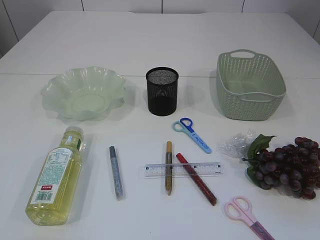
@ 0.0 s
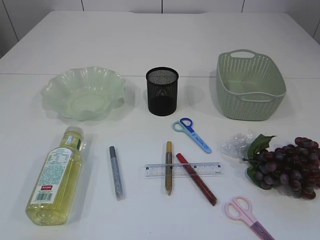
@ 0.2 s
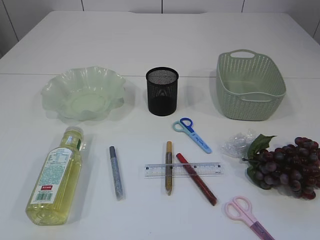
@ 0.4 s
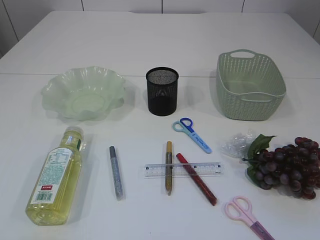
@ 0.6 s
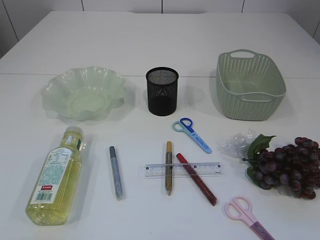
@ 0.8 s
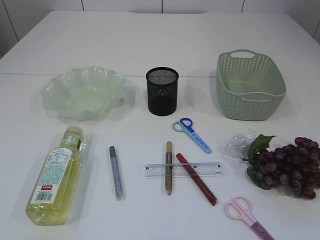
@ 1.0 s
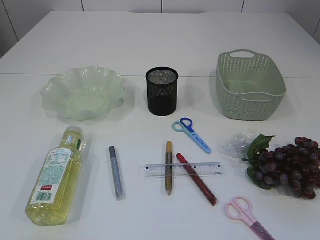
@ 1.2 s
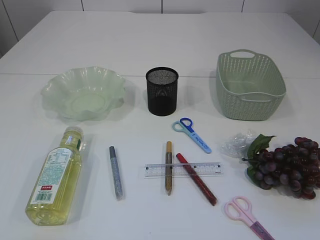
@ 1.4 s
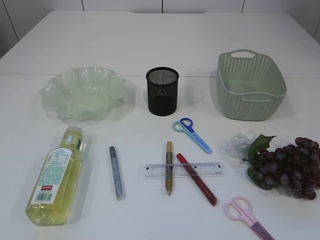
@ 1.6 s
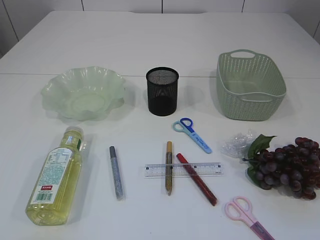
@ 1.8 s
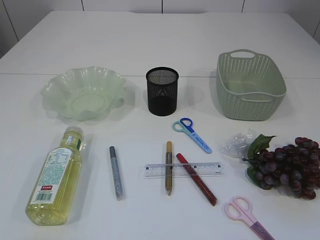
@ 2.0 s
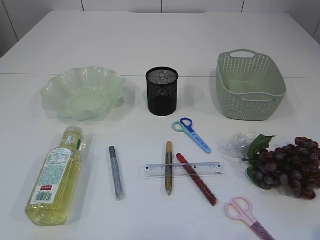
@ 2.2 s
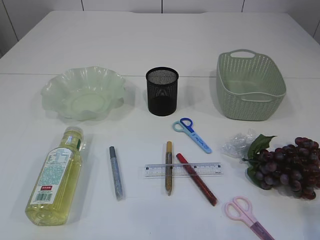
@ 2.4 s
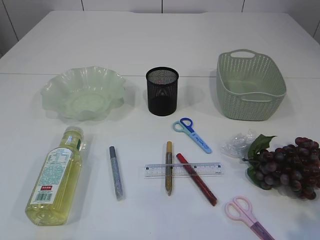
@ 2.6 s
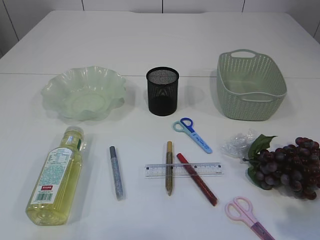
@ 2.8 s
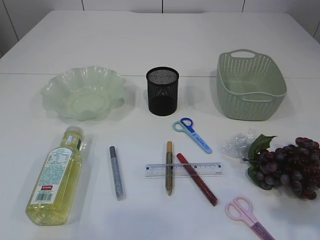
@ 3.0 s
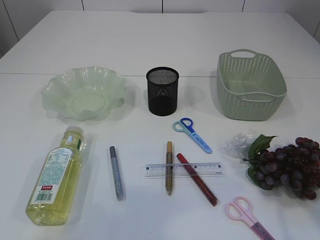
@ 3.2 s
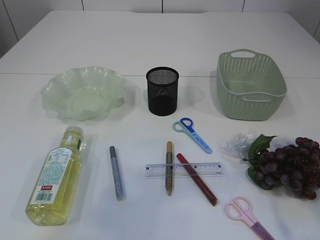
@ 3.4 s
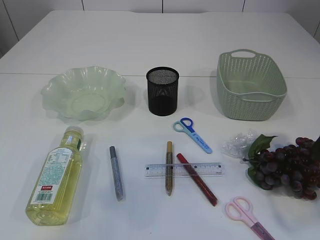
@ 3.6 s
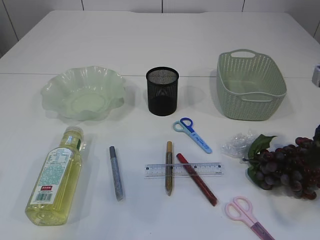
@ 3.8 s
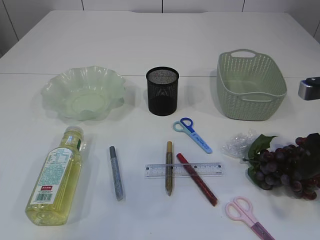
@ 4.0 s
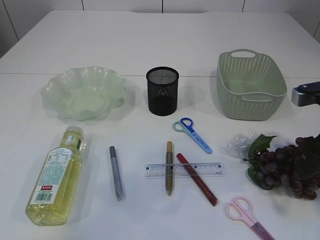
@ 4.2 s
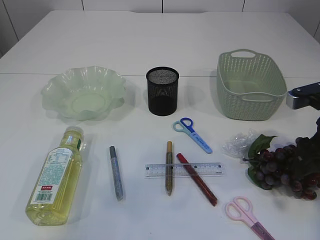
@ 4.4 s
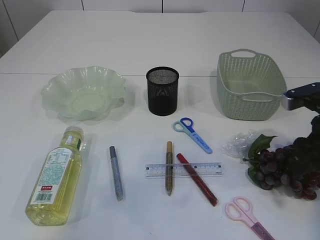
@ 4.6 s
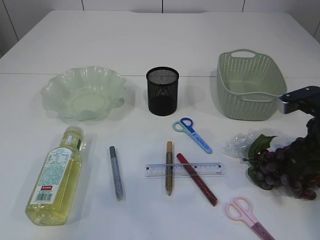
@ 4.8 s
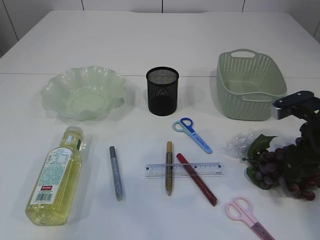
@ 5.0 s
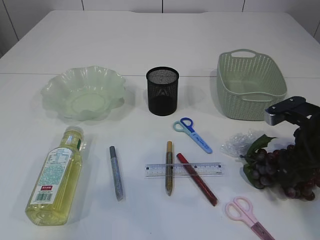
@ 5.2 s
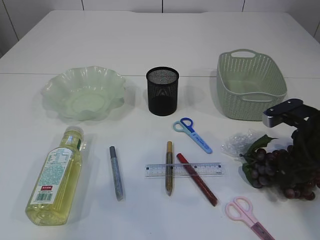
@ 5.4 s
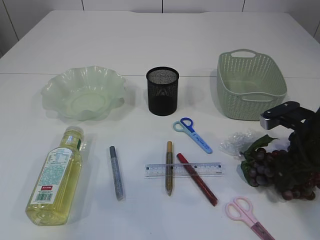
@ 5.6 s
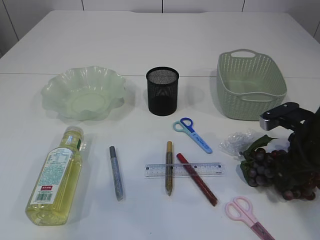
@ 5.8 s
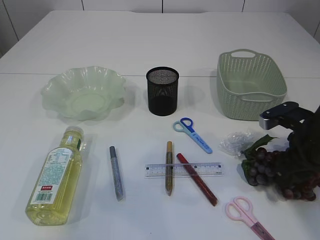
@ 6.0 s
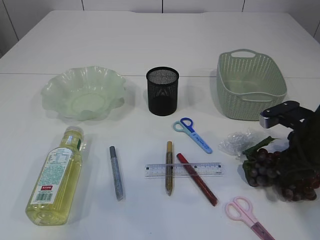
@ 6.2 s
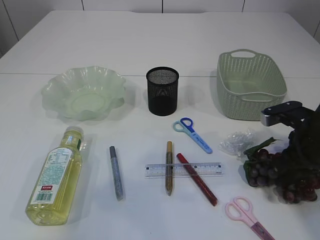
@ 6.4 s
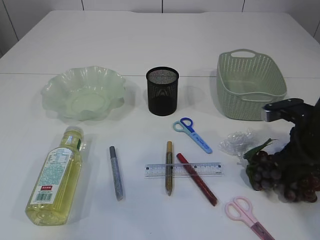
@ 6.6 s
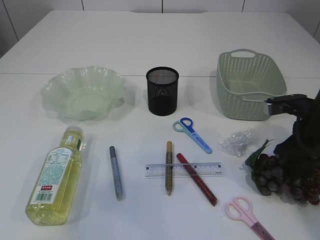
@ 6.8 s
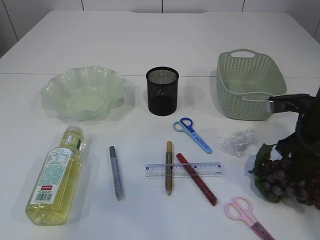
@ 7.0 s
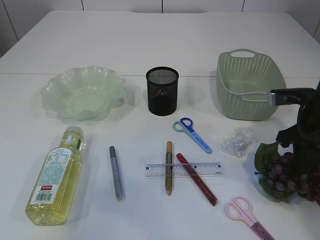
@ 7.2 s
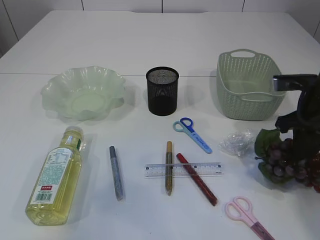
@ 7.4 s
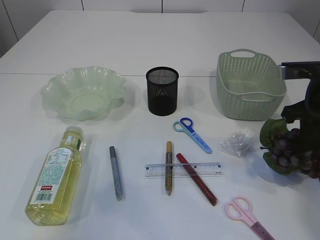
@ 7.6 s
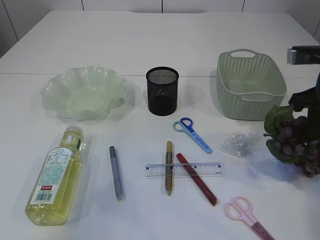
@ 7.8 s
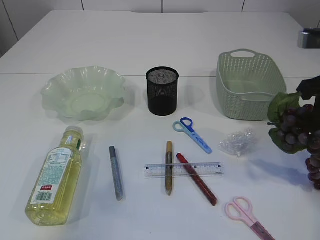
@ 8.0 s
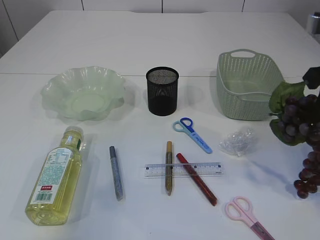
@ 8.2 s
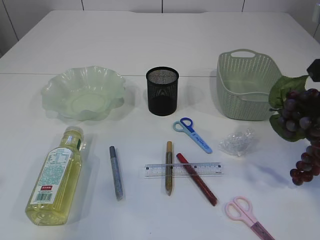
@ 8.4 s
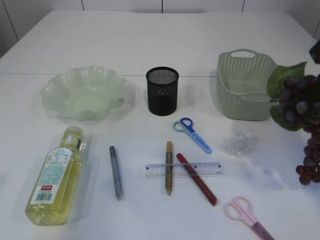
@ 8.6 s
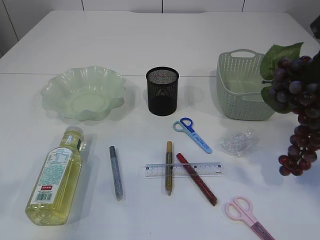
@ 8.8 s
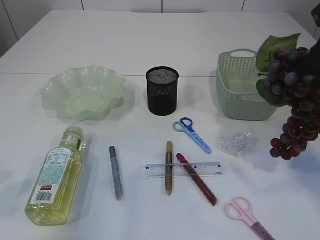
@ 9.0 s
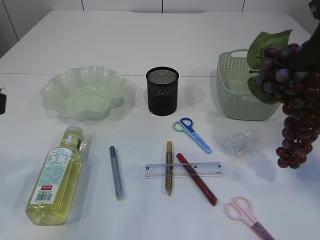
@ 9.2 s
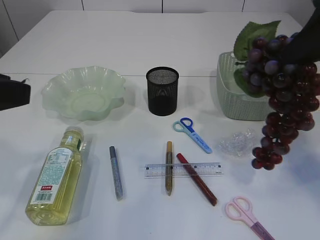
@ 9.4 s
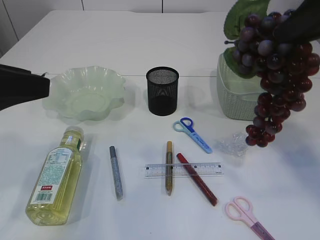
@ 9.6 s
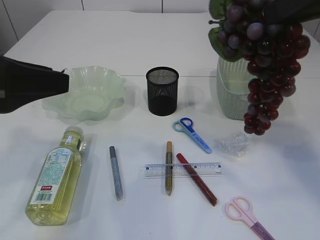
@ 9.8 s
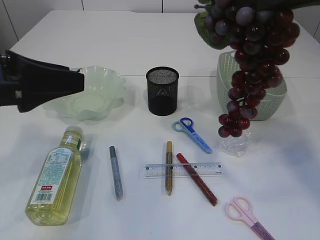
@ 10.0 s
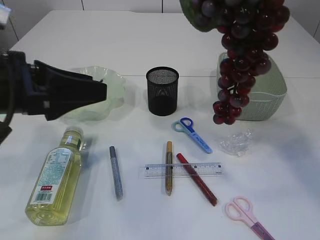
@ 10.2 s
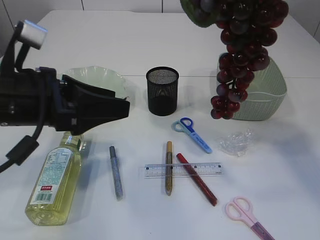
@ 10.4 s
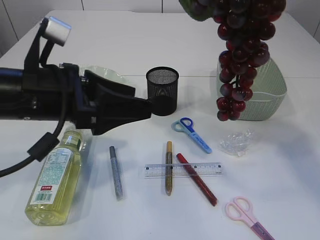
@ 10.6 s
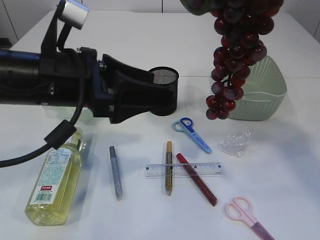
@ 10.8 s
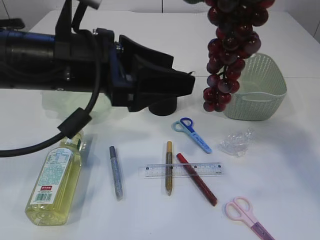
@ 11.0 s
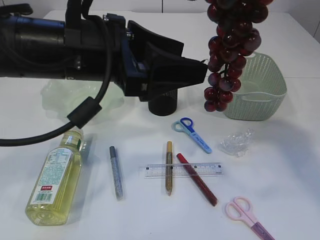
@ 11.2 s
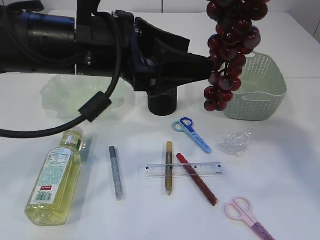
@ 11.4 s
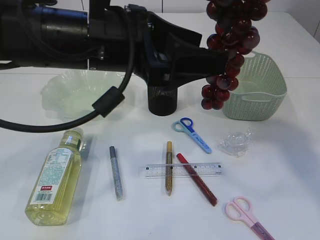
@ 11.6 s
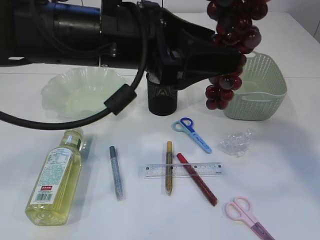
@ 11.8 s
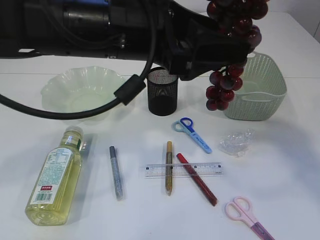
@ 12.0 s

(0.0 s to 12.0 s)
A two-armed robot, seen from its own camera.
Step, 0.0 s - 9.4 s: Pick up the grapes.
1.6 s - 3.0 s: The right gripper is displaced forward by about 15 cm.
3.0 s - 4.4 s: The right gripper shifts roughly 15 cm forward and downward, while the left gripper heads forward and upward, covering some 10 cm.
4.4 s - 6.0 s: The right gripper shifts approximately 5 cm downward.
6.0 s - 7.6 s: The right gripper goes some 10 cm upward, and closes its fingers.
7.6 s - 9.0 s: The right gripper shifts approximately 15 cm upward and backward.
9.0 s - 10.4 s: The right gripper shifts approximately 5 cm upward; the left gripper travels forward, to the right and downward by some 15 cm.
10.4 s - 12.0 s: The left gripper shifts roughly 15 cm to the right and upward.

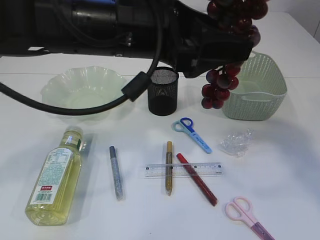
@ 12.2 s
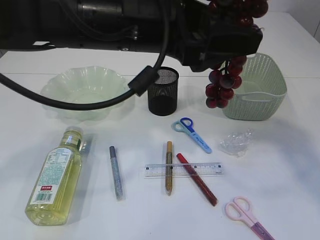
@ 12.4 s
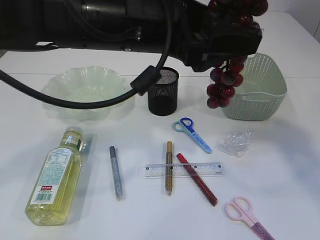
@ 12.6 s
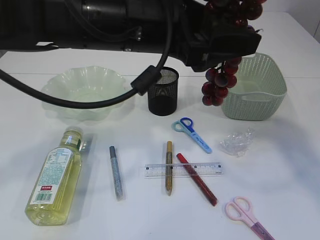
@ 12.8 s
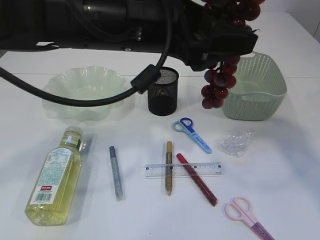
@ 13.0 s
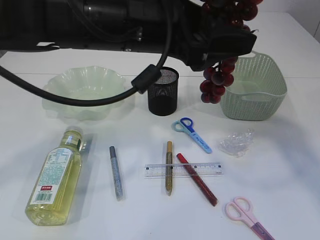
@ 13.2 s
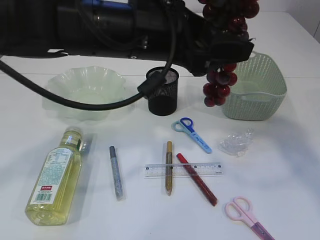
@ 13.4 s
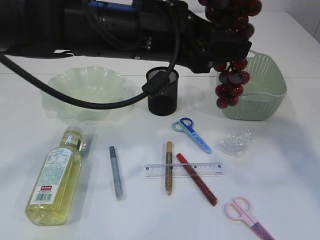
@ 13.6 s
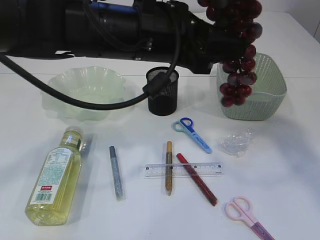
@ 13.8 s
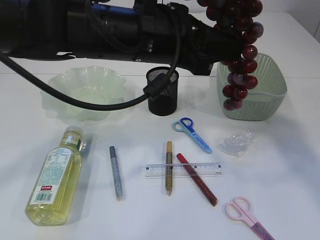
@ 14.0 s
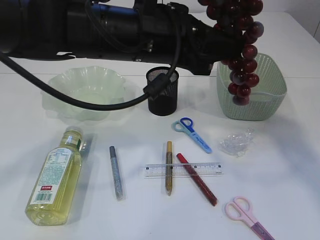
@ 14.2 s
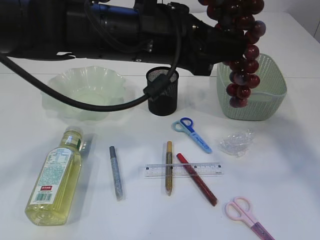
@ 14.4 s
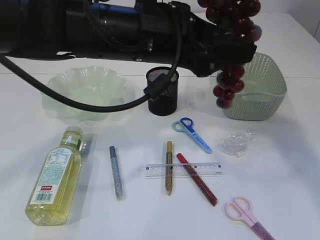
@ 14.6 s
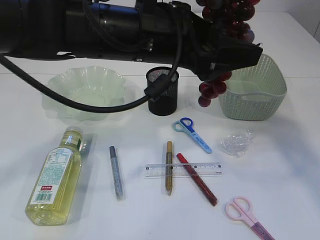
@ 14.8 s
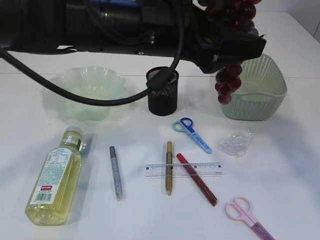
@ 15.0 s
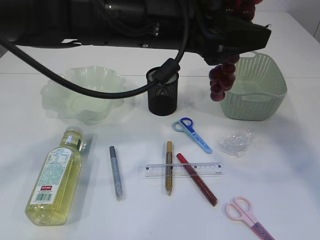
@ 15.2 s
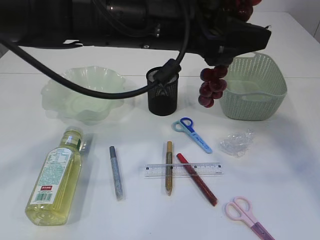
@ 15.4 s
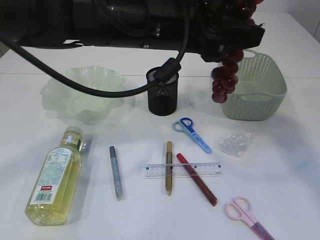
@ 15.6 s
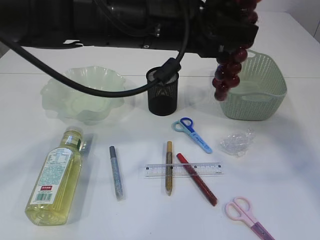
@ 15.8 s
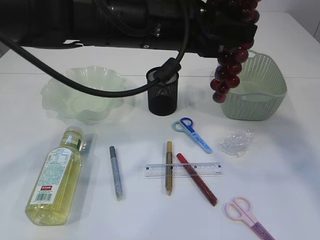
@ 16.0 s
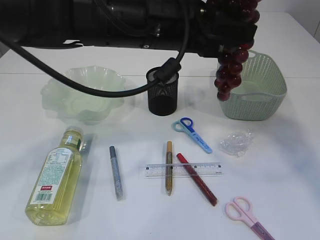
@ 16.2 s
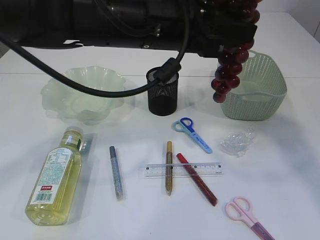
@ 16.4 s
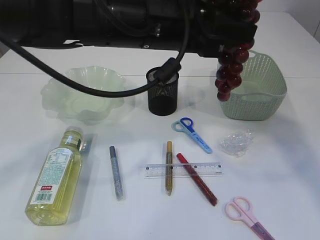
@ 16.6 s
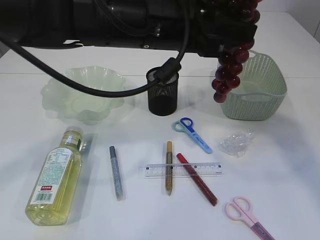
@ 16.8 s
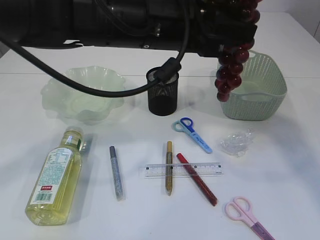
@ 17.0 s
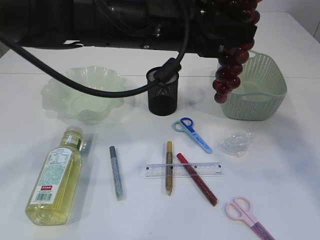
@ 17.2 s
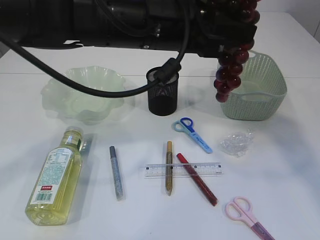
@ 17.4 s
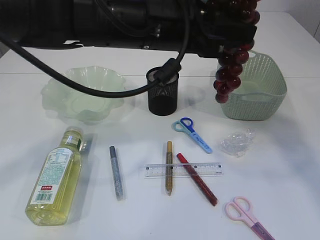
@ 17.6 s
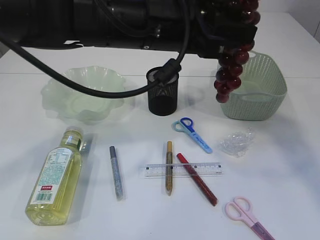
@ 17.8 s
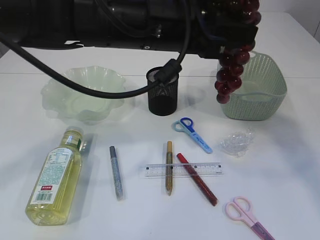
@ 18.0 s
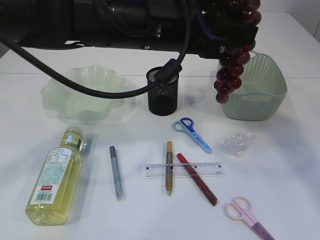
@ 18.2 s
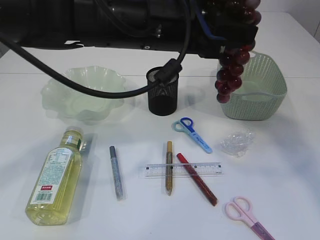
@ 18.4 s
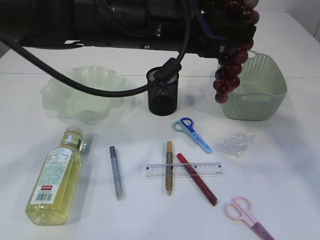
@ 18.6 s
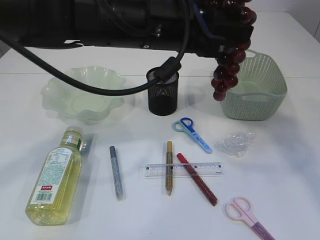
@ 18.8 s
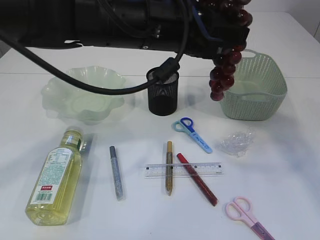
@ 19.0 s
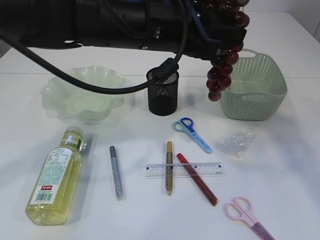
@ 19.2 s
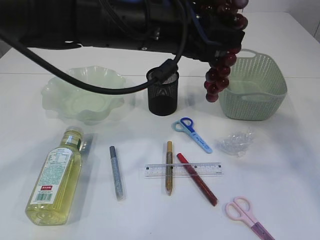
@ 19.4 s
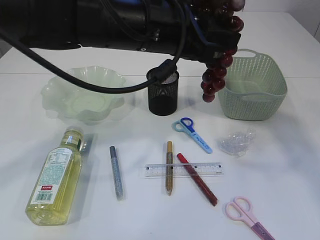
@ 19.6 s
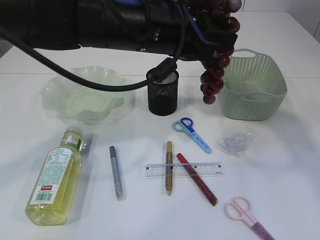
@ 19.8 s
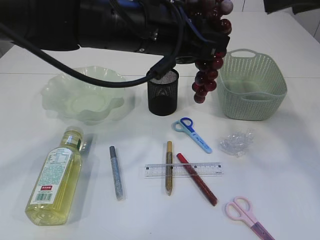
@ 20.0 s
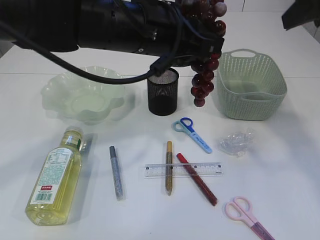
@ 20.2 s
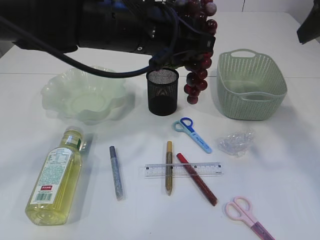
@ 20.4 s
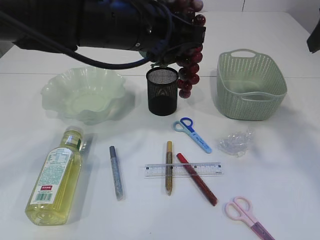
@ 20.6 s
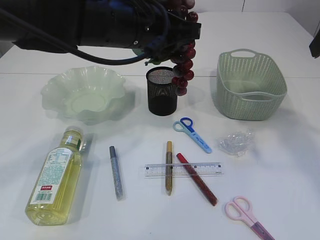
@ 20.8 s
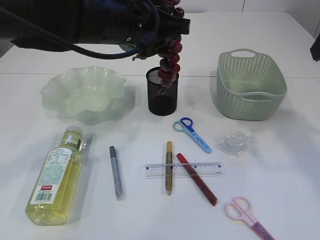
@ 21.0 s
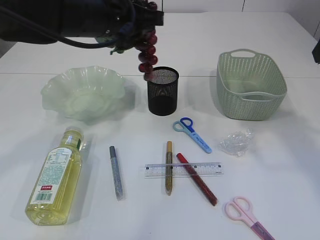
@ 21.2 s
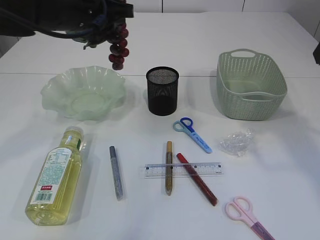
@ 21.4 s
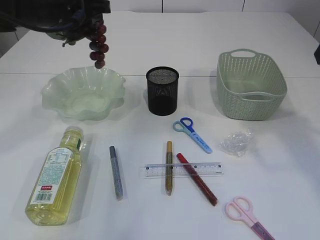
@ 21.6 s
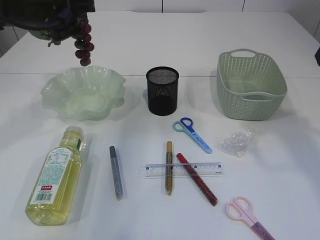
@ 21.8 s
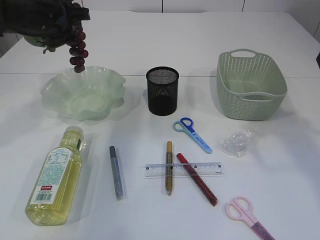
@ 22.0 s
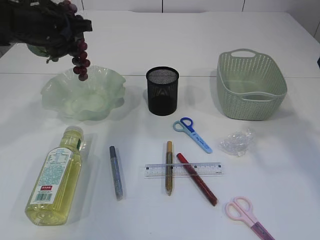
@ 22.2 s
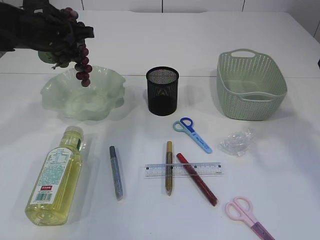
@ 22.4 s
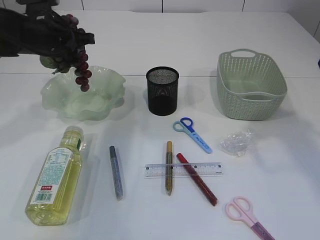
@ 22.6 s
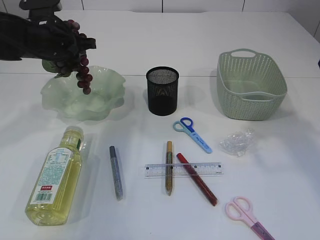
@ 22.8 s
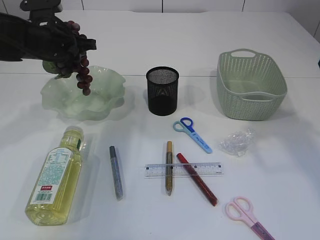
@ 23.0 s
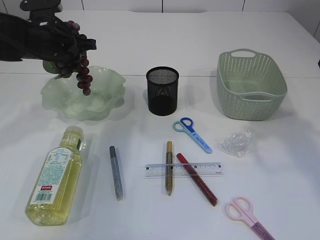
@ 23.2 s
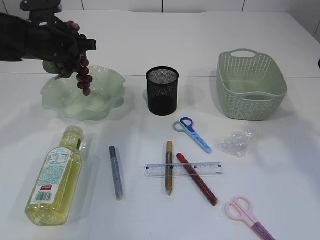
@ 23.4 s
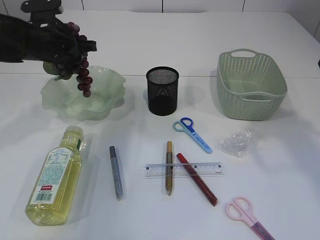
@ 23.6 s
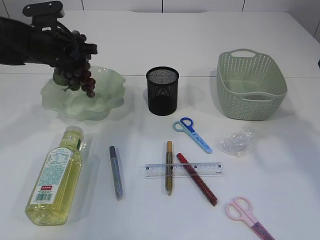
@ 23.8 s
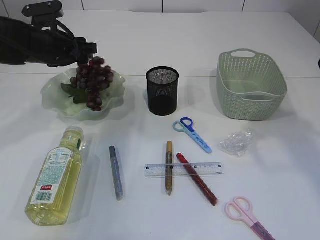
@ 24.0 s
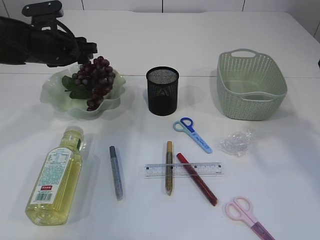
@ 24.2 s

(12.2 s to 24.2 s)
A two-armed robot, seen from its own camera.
Step, 12.2 s - 20.0 s: Hand over the grapes.
12.2 s - 13.8 s: The left gripper closes.
13.8 s - 15.2 s: The left gripper opens its fingers.
15.2 s - 16.6 s: The left gripper closes.
16.6 s - 18.2 s: The right gripper opens.
18.2 s - 19.8 s: The grippers stay close to where they were, moving slightly.
19.8 s - 21.2 s: The left gripper travels to the left and forward by approximately 10 cm. The right gripper is displaced to the right by roughly 5 cm.
21.2 s - 22.6 s: The left gripper is displaced to the left, forward and downward by about 15 cm.
22.6 s - 24.2 s: The left gripper opens.
